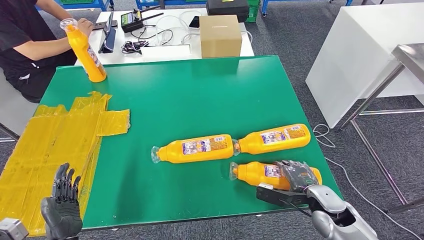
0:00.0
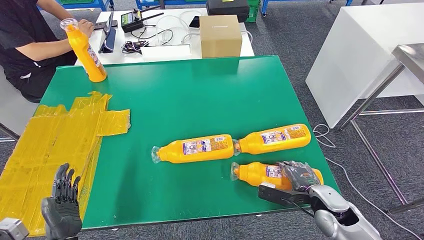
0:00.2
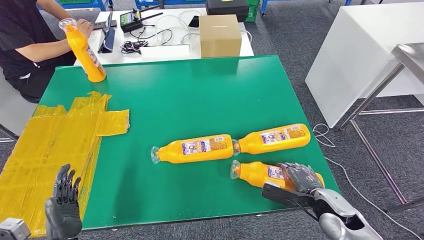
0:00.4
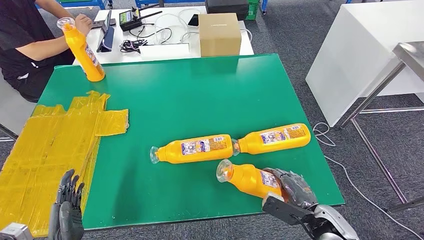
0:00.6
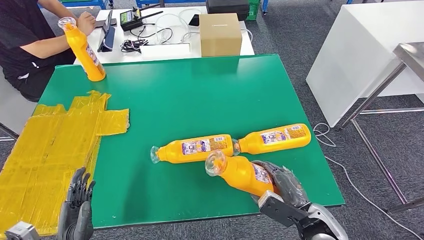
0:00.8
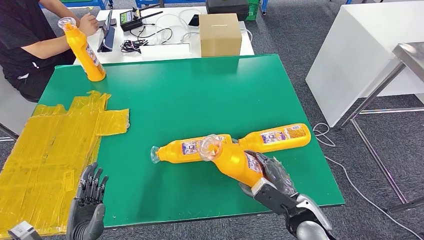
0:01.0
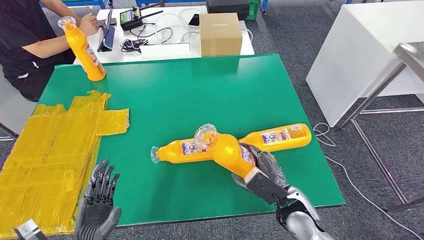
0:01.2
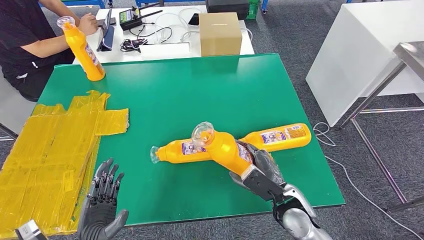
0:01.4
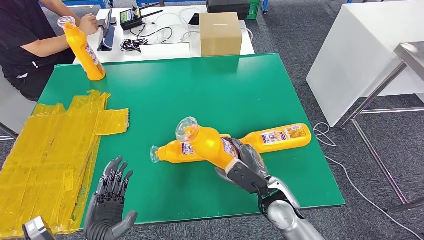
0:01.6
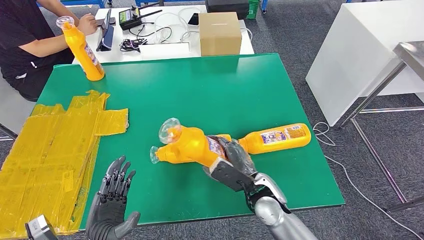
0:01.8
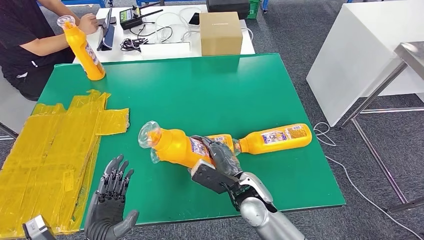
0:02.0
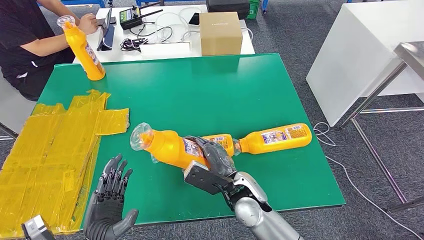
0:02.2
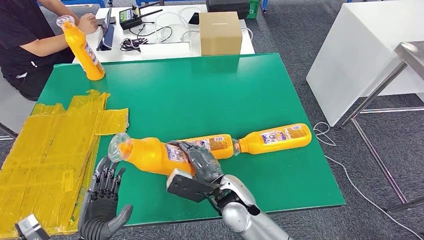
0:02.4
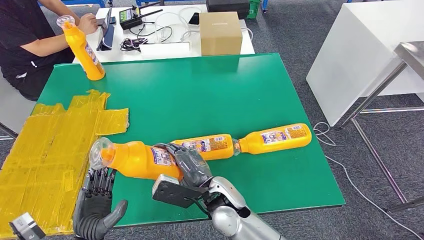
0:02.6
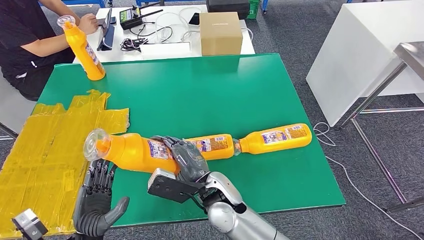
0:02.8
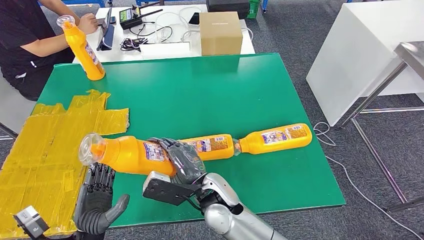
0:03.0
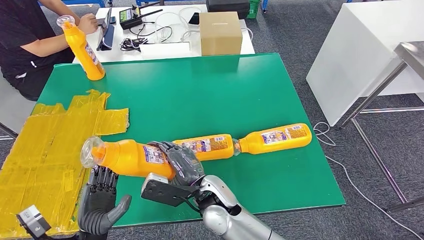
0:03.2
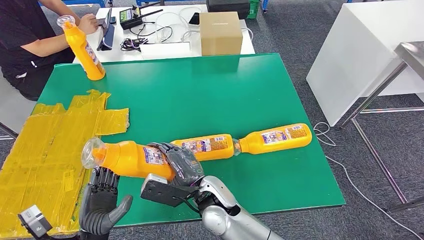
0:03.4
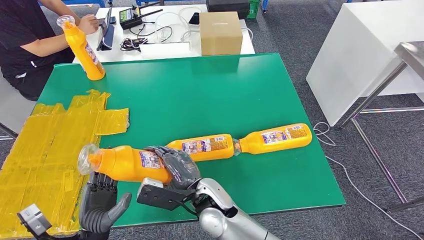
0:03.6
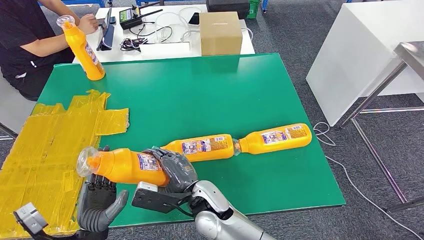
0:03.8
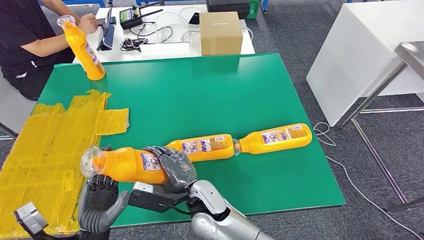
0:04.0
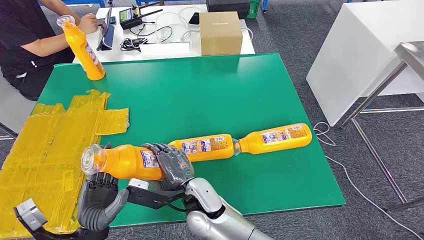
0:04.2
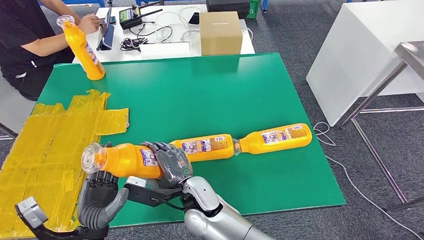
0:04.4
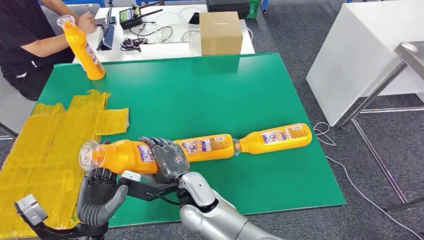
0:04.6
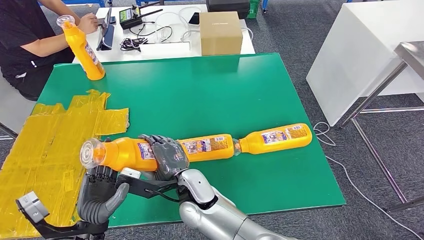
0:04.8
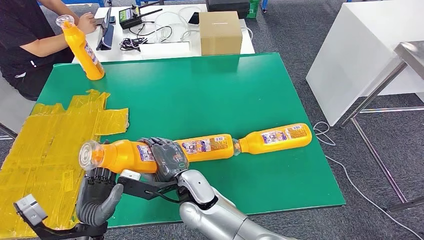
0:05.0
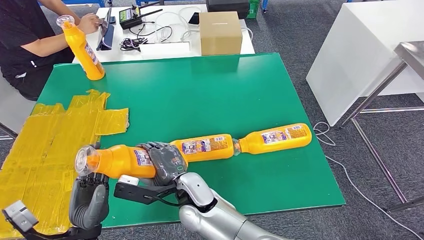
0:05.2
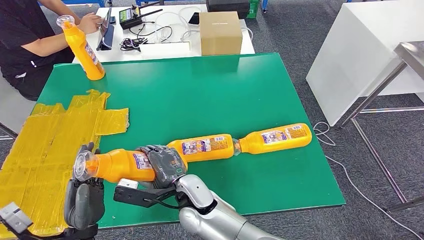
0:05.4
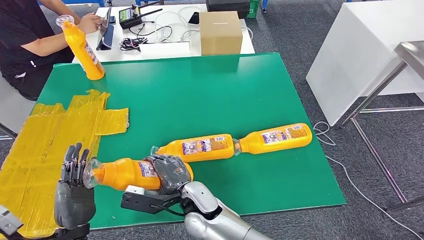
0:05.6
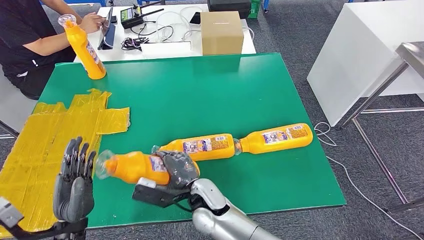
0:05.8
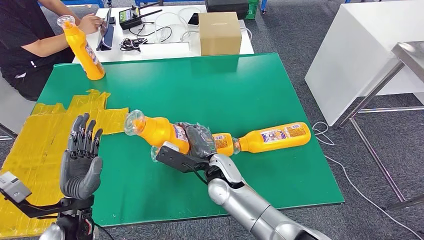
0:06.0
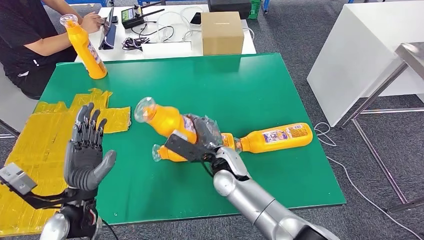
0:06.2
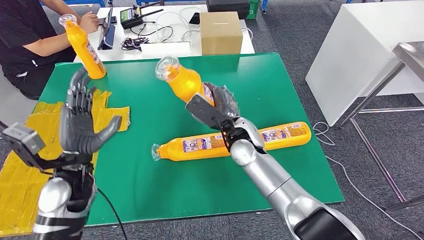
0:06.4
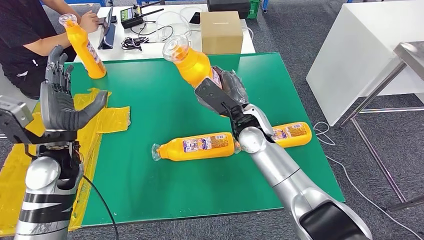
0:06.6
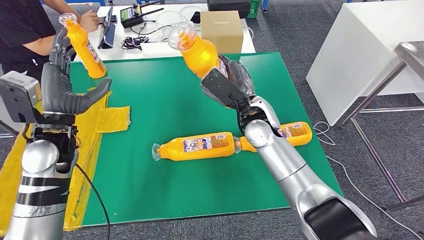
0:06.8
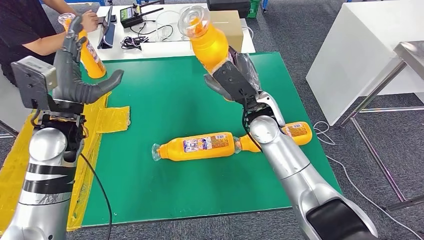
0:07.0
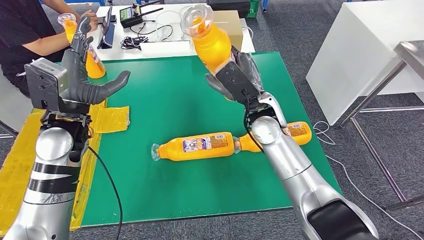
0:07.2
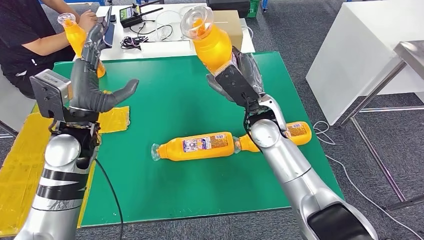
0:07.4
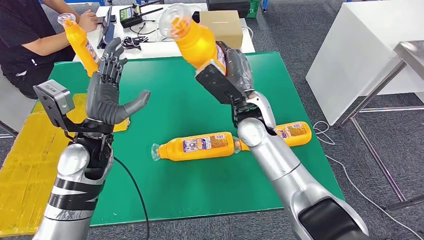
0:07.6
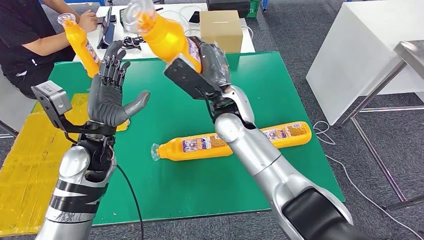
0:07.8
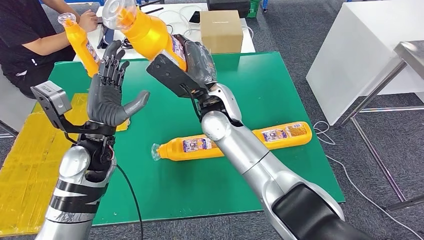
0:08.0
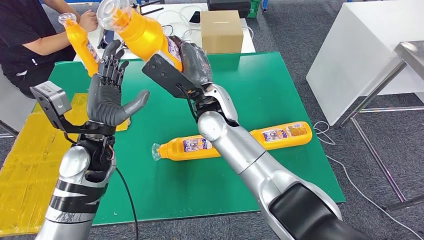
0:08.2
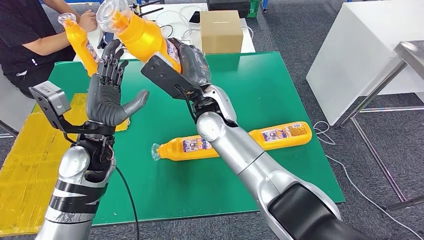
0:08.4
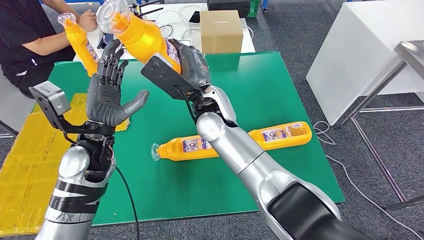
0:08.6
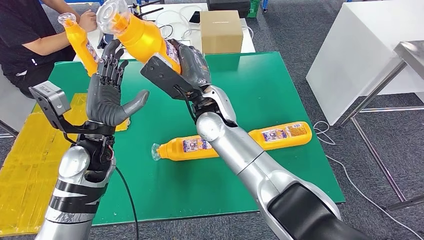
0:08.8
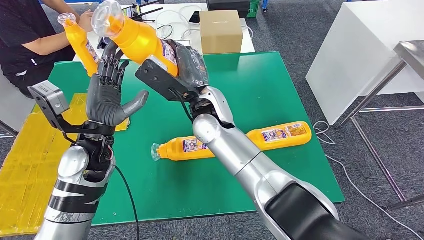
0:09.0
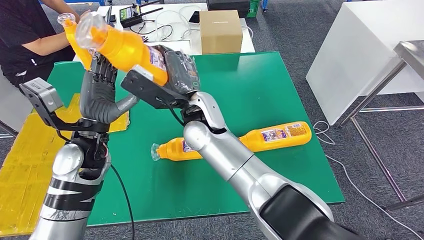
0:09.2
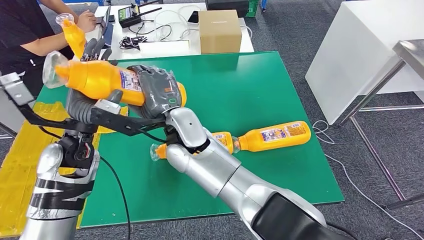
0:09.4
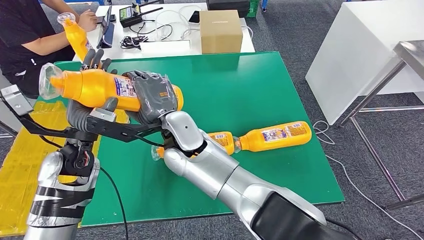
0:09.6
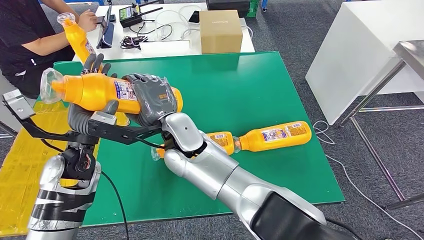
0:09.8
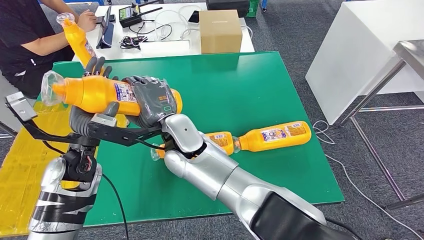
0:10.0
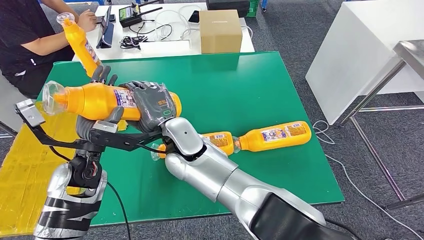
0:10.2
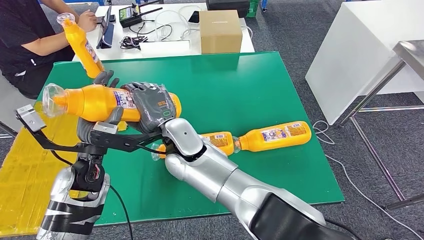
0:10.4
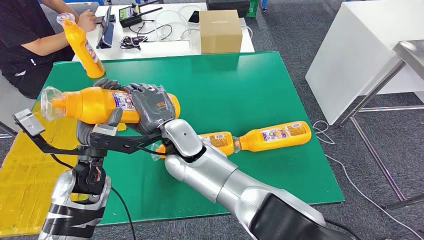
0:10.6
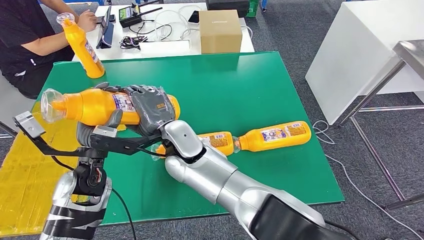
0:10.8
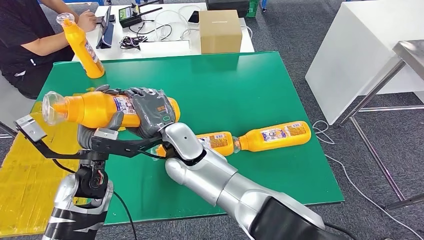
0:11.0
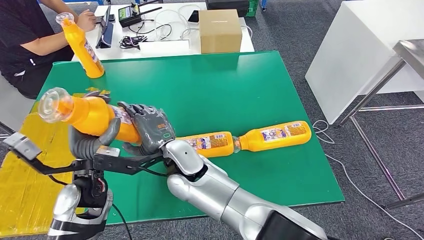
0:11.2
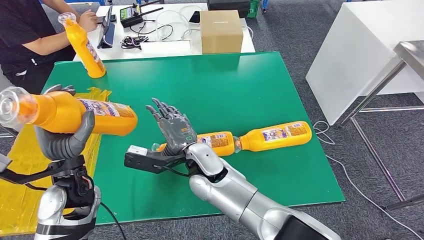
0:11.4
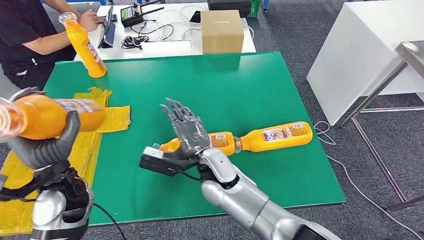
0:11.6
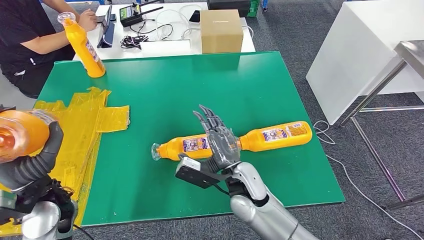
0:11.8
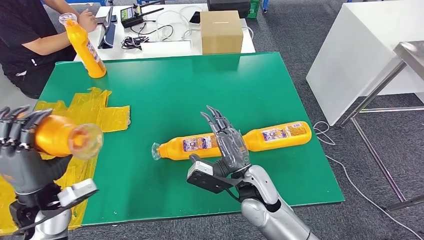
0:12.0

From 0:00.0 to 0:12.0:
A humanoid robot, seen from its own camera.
Step, from 0:00.0 to 0:02.4: Pick up the fast-moving consumer goods bottle from the table.
From 0:01.6 to 0:03.0: The right hand goes about 15 cm to the left.
From 0:03.0 to 0:04.4: The right hand moves about 5 cm.

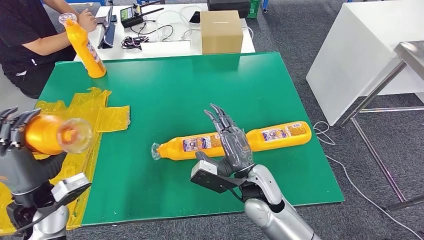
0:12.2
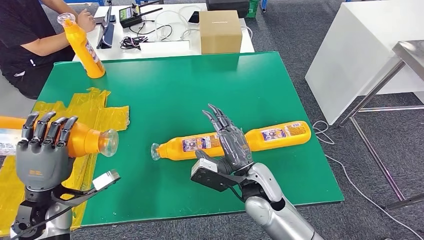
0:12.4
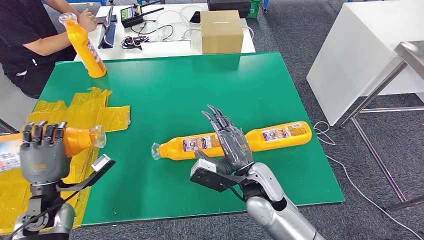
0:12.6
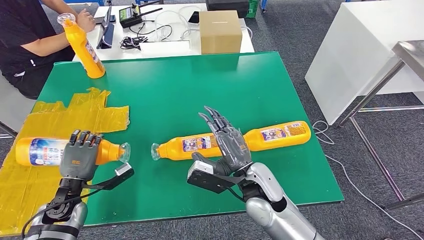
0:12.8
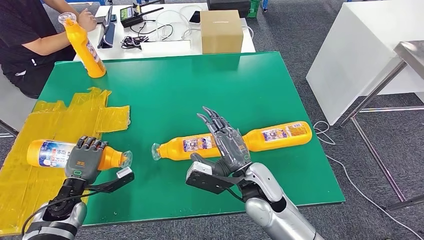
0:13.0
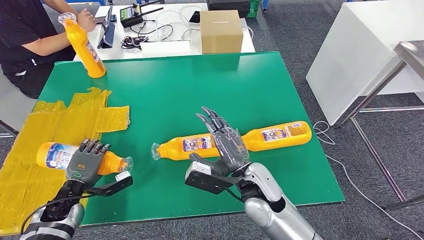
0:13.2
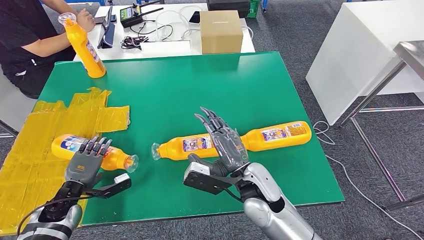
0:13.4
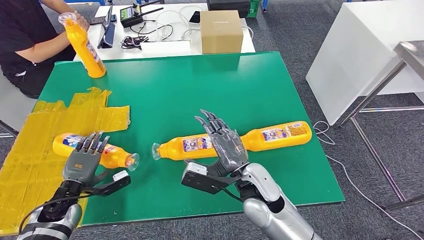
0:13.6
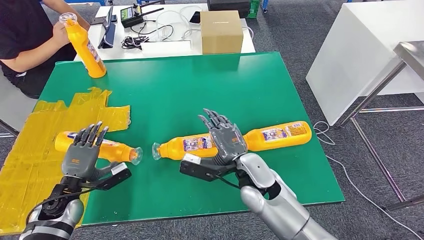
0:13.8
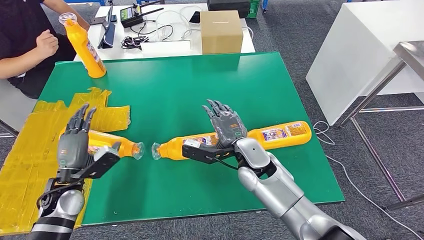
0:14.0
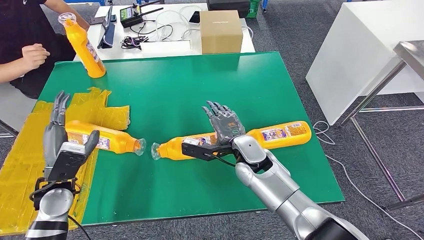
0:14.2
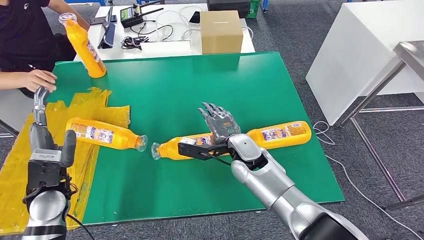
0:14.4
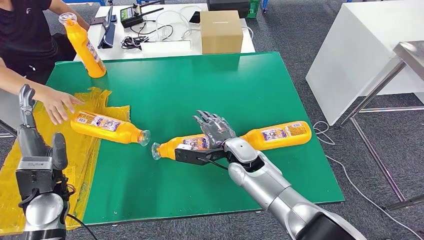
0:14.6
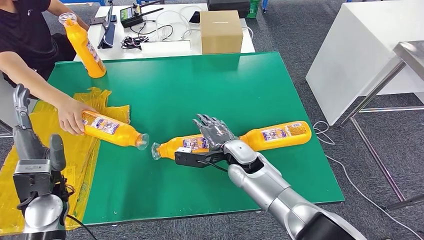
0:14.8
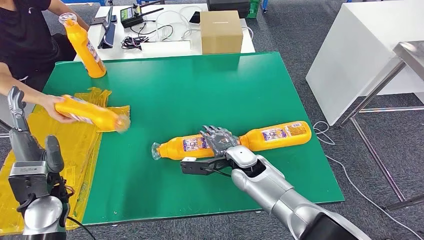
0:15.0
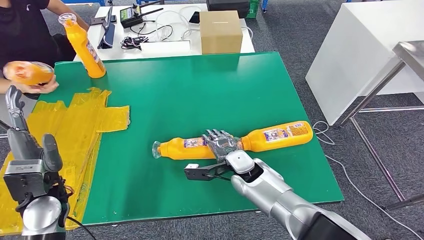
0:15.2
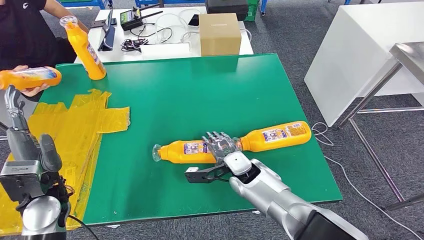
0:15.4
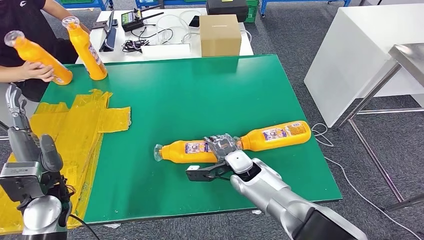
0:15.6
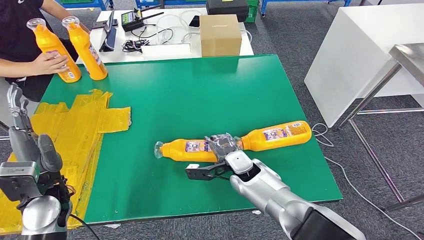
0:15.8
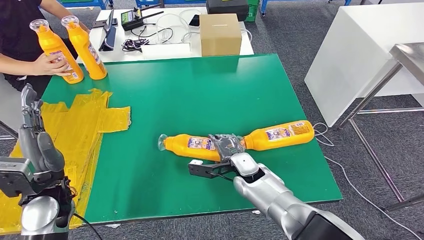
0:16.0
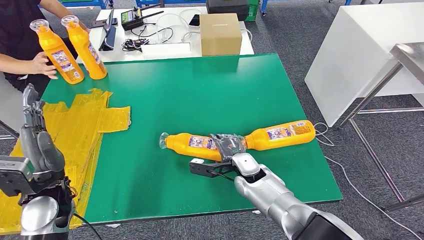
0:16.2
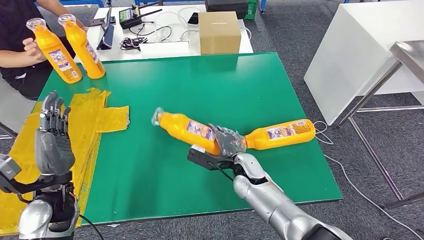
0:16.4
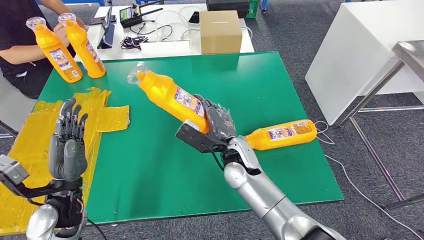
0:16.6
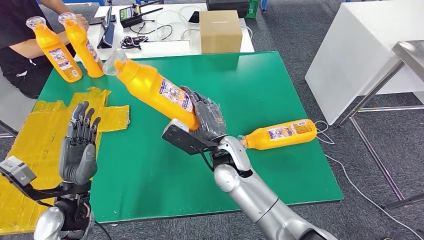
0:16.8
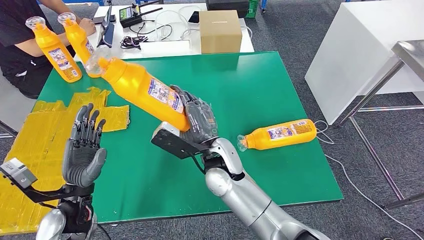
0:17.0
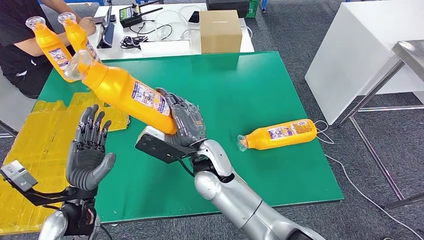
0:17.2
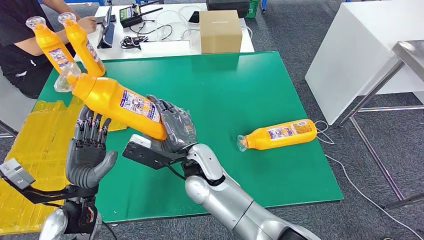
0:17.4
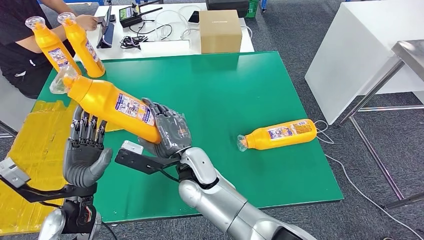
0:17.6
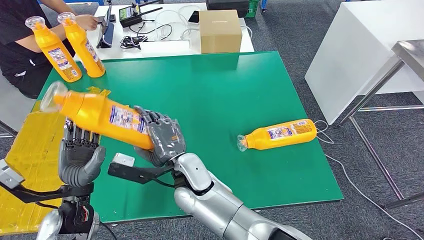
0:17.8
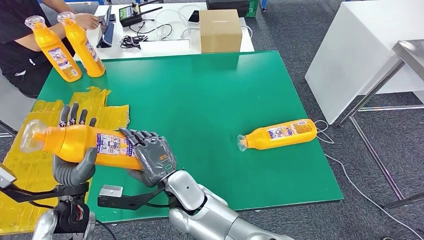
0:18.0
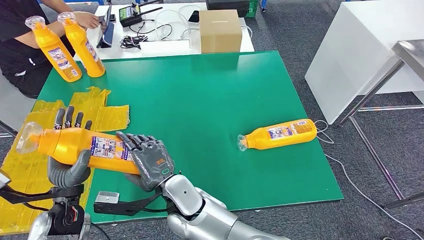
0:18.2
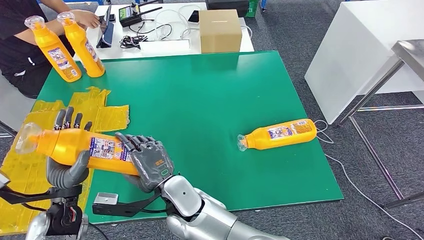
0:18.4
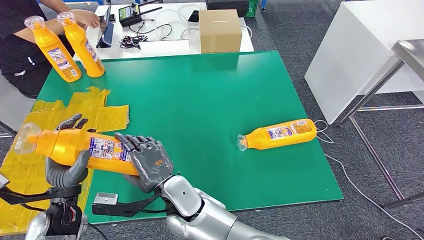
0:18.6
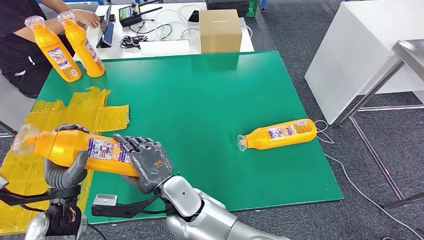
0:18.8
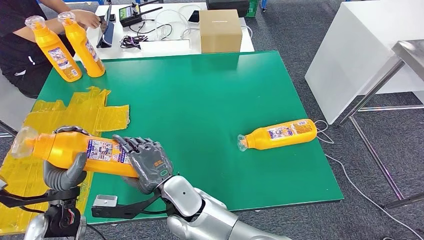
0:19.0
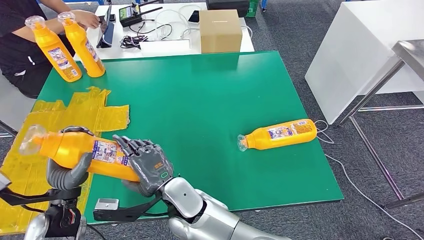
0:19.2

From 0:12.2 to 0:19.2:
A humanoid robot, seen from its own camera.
Step, from 0:14.2 to 0:18.4: Pick up the fast-moving consumer goods bottle from the table.
From 0:12.2 to 0:13.6: The left hand heads downward, covering approximately 15 cm.
From 0:17.8 to 0:19.2: The right hand goes about 5 cm backward.
